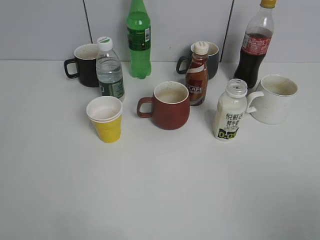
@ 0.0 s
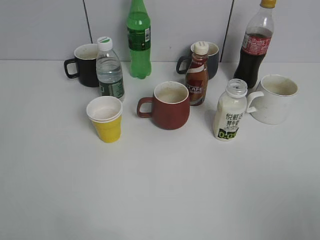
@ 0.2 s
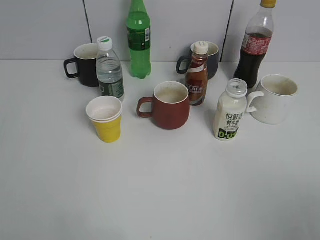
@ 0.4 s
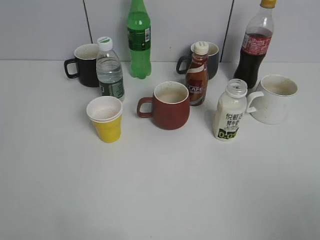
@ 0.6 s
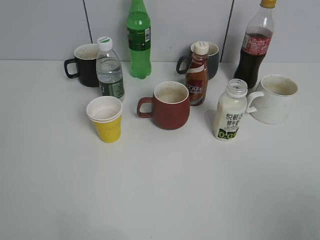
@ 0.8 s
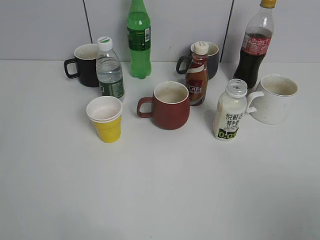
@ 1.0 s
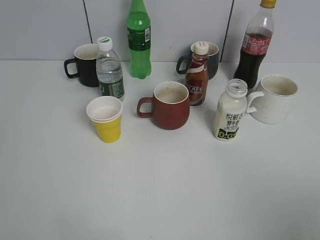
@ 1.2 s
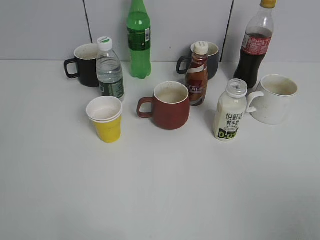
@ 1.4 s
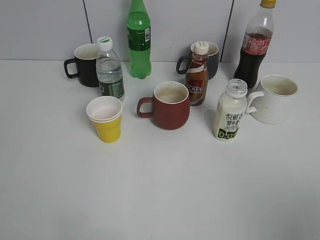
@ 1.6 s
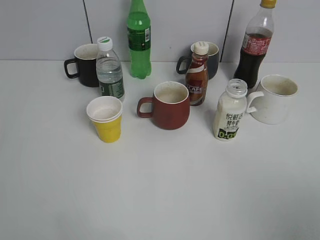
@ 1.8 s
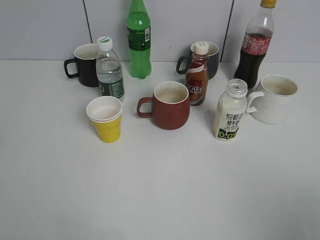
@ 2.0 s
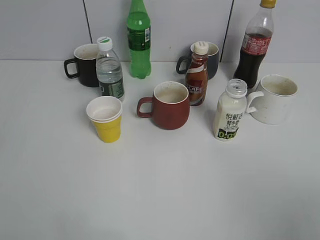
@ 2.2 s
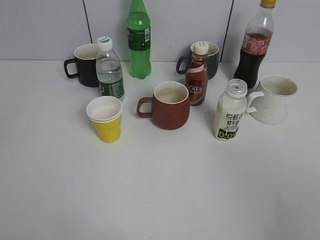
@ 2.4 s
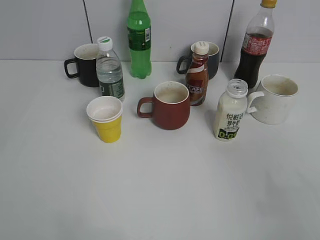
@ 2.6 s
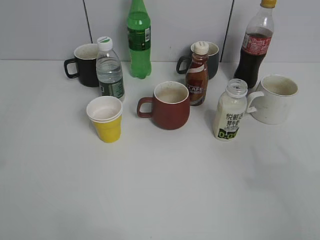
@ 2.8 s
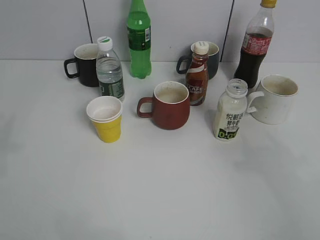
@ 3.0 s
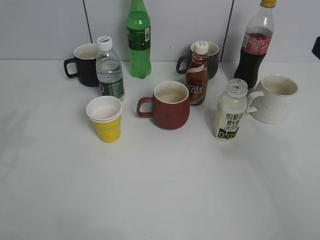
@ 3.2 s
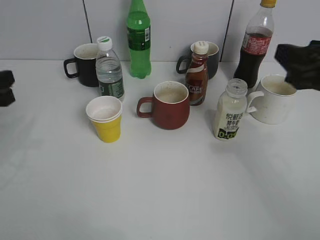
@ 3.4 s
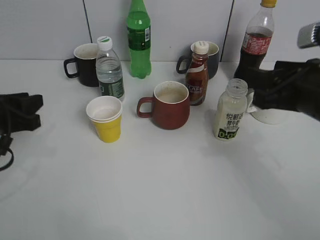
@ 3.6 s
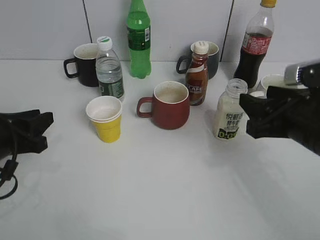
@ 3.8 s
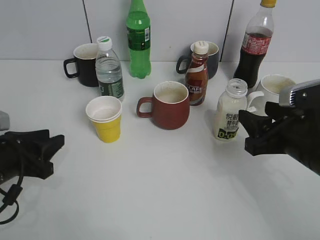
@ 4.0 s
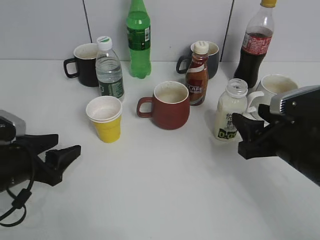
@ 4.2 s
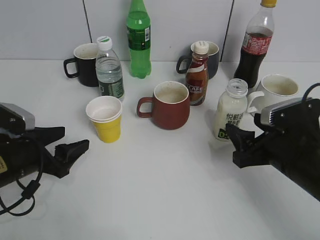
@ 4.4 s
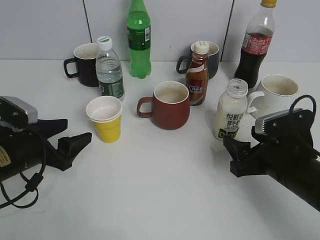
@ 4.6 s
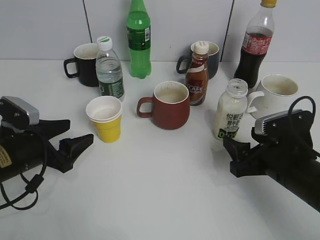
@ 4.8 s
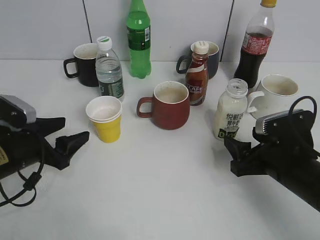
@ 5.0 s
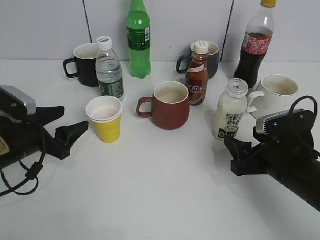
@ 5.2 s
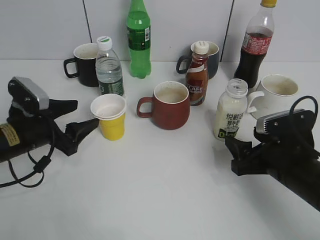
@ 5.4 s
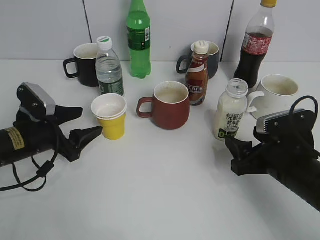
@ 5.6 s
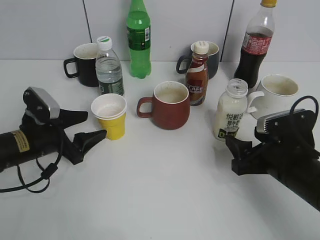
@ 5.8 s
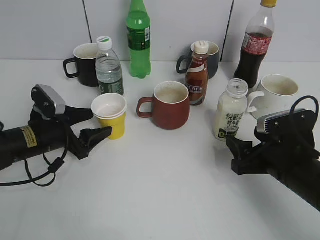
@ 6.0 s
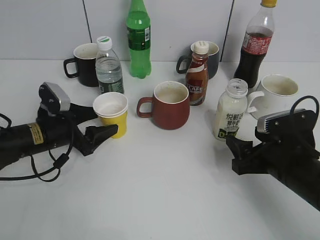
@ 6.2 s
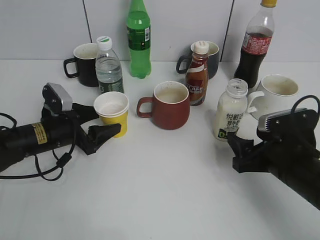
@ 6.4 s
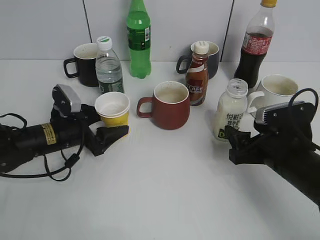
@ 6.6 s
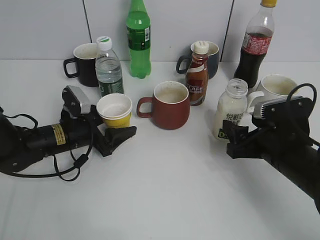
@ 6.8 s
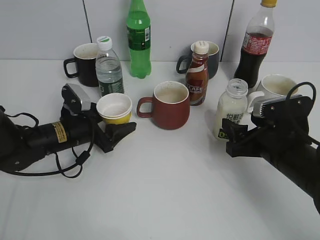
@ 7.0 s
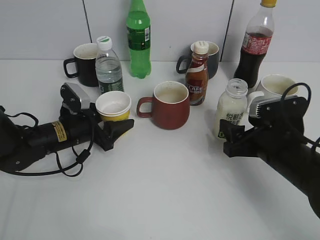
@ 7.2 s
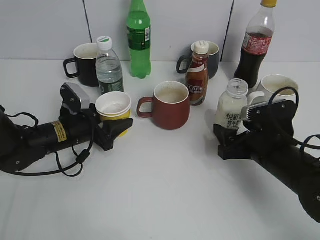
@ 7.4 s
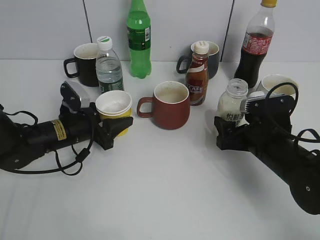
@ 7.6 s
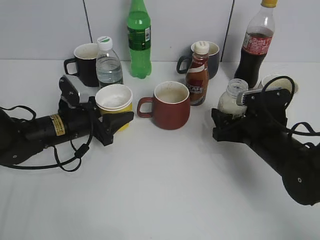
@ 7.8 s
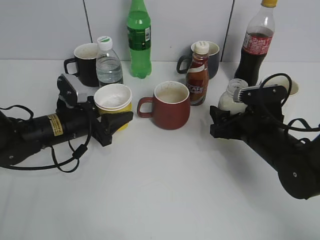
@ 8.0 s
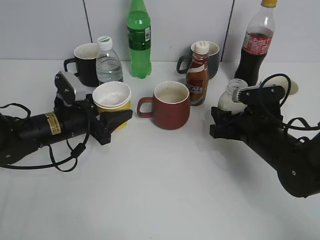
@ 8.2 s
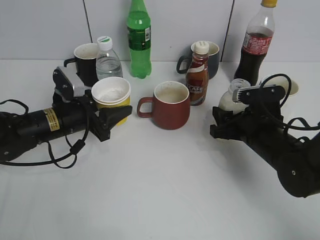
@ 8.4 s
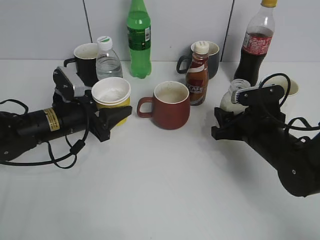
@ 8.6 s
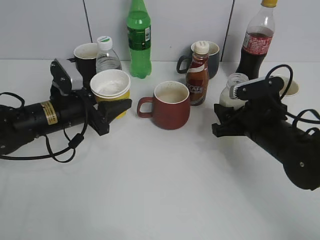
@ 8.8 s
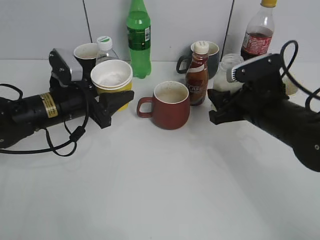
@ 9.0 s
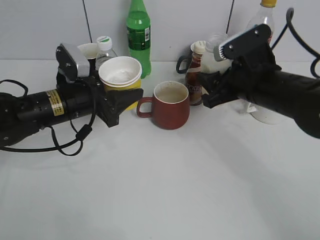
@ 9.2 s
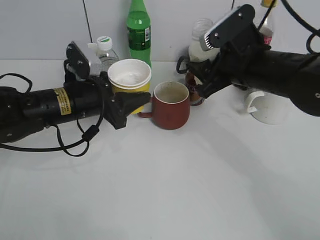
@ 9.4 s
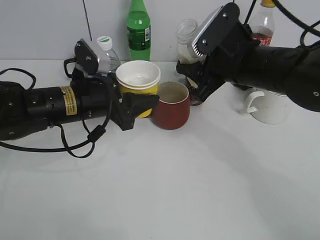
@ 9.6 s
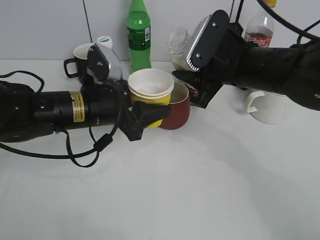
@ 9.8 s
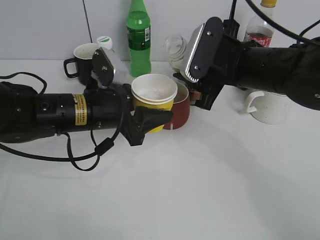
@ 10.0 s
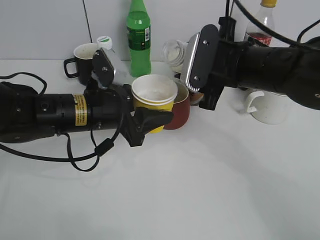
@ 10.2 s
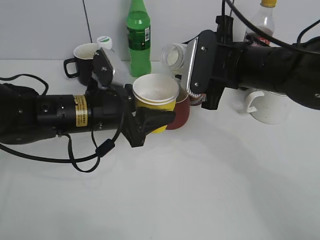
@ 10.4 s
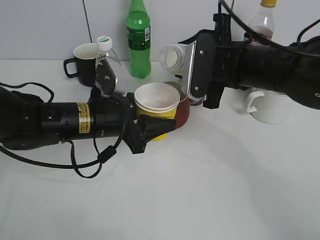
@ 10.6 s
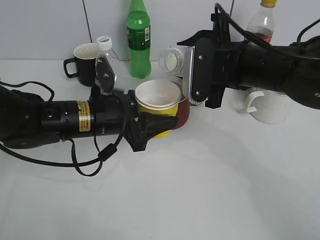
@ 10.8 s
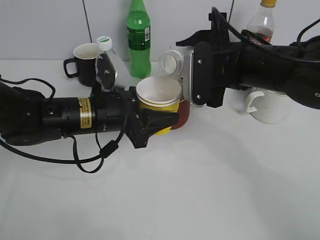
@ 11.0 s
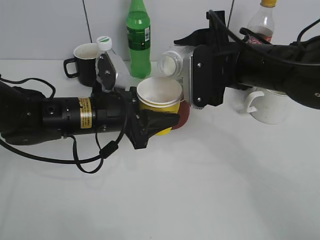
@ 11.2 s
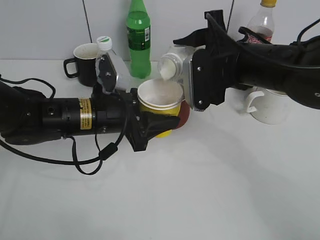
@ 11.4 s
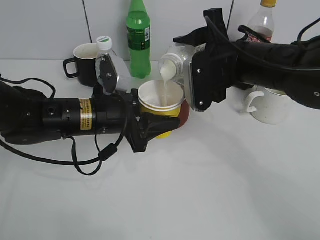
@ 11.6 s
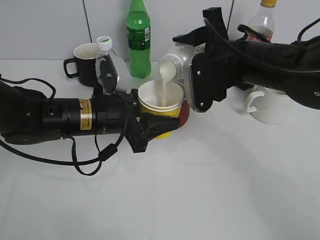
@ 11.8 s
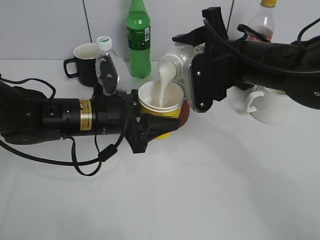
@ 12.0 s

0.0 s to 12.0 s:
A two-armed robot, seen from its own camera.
Step, 3.2 to 7.2 s: Grasp the yellow paper cup with left gripper.
Step, 7.4 to 8.0 s: Lift the yellow paper cup with left gripper.
1.6 to 3.0 s: The right gripper heads forward, covering about 15 cm.
3.0 to 4.4 s: The right gripper goes approximately 20 cm downward and forward, and opens its fingers, while the left gripper heads downward, covering some 20 cm, and opens up.
4.4 to 6.0 s: The left gripper is displaced forward by roughly 5 cm.
6.0 to 7.6 s: The left gripper changes place by roughly 5 cm, and closes its fingers.
7.6 to 9.0 s: Both grippers move upward, about 5 cm. The right gripper closes up.
9.0 to 10.4 s: The left gripper shifts some 5 cm to the right; the right gripper heads upward and to the left, covering roughly 10 cm.

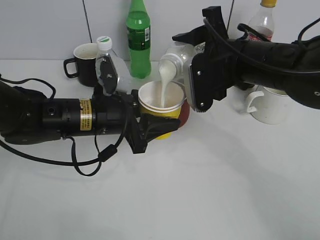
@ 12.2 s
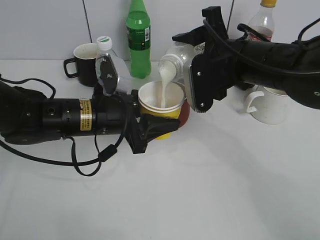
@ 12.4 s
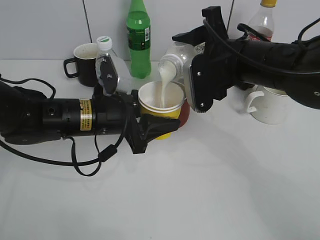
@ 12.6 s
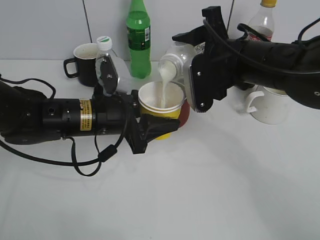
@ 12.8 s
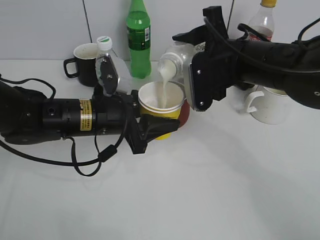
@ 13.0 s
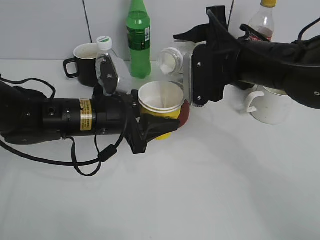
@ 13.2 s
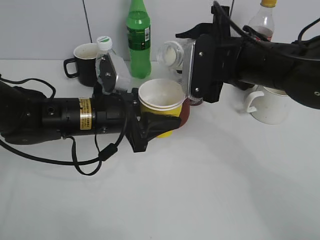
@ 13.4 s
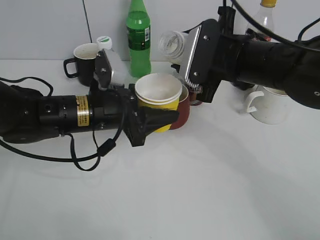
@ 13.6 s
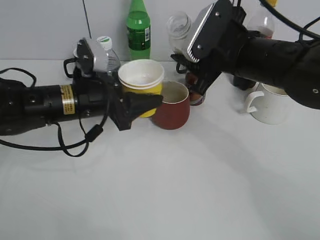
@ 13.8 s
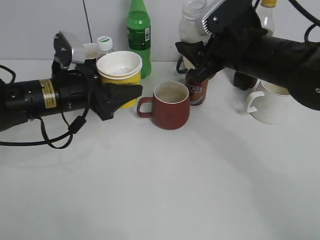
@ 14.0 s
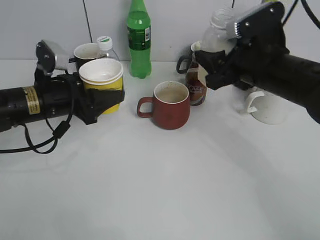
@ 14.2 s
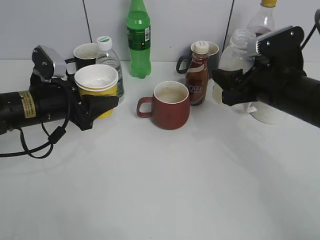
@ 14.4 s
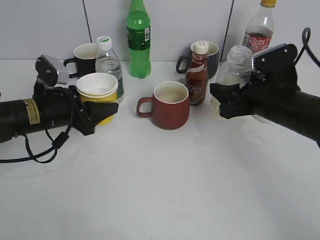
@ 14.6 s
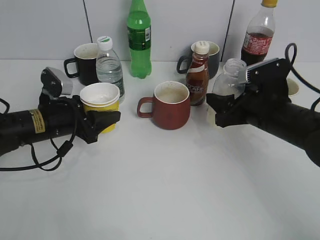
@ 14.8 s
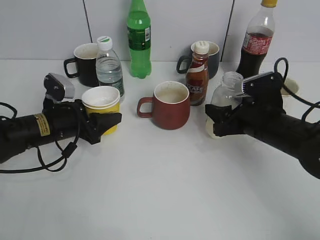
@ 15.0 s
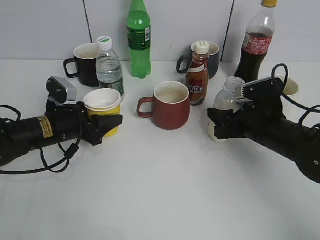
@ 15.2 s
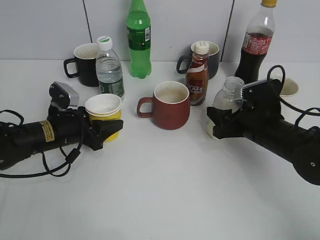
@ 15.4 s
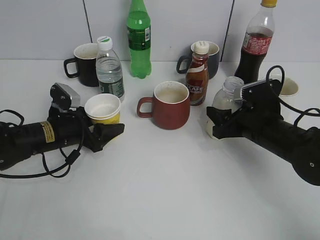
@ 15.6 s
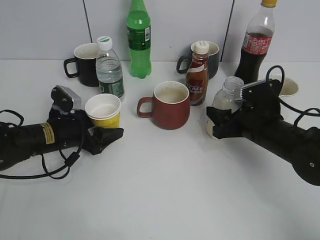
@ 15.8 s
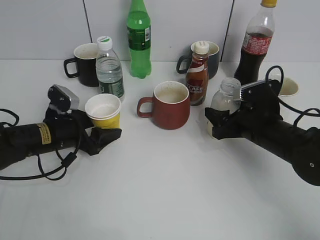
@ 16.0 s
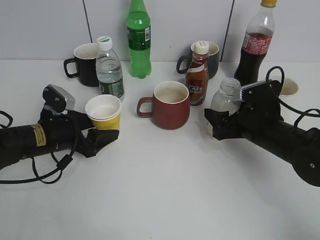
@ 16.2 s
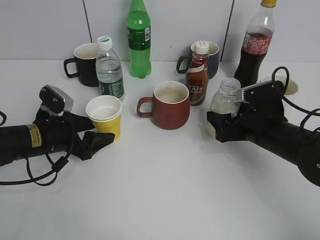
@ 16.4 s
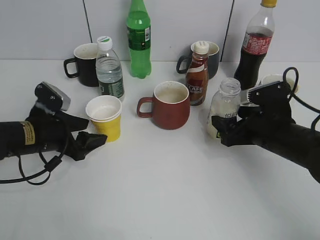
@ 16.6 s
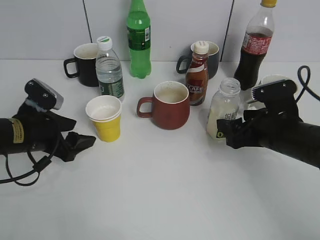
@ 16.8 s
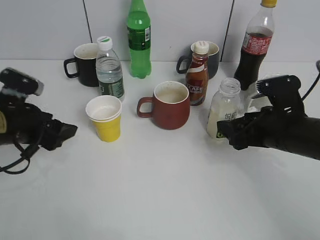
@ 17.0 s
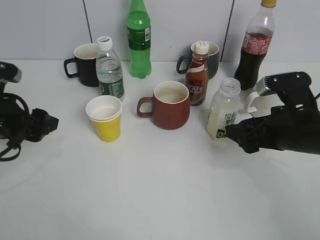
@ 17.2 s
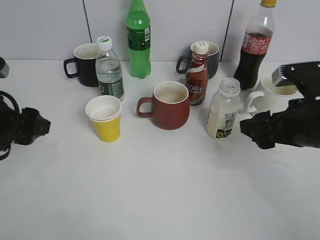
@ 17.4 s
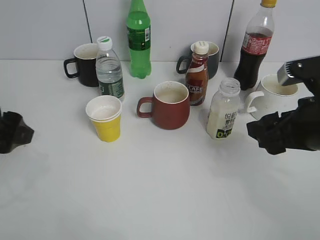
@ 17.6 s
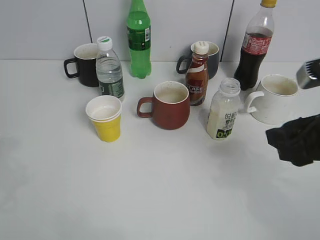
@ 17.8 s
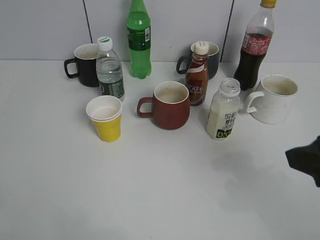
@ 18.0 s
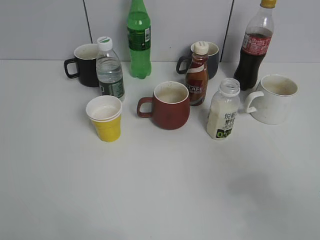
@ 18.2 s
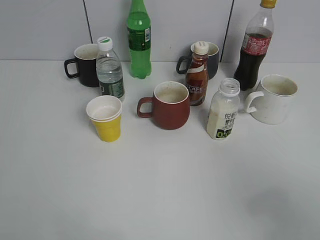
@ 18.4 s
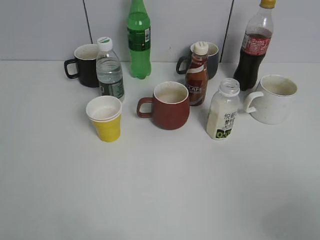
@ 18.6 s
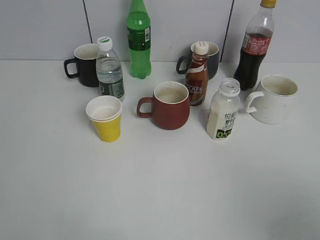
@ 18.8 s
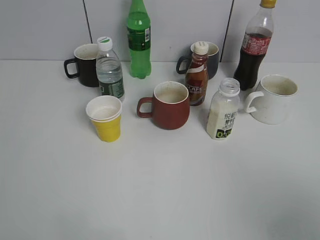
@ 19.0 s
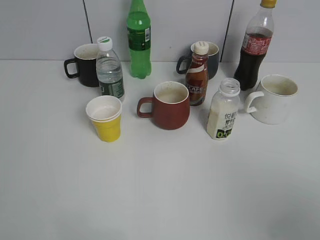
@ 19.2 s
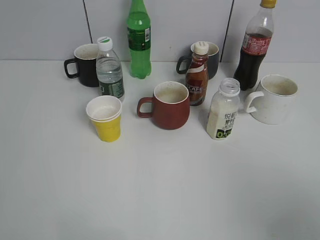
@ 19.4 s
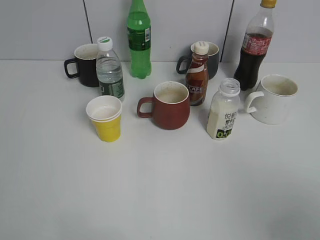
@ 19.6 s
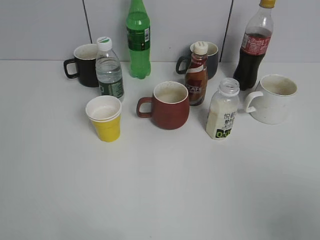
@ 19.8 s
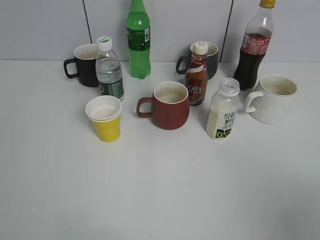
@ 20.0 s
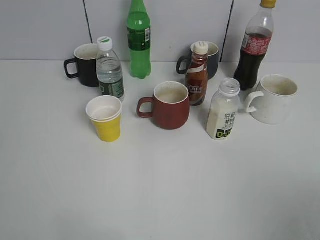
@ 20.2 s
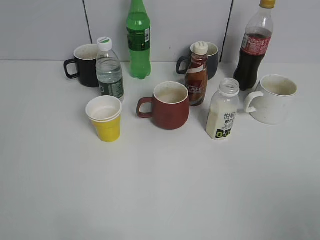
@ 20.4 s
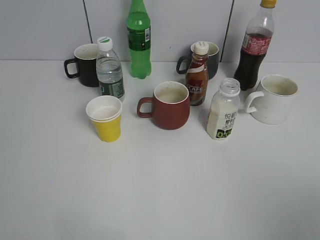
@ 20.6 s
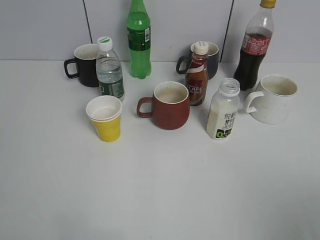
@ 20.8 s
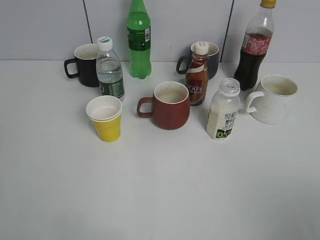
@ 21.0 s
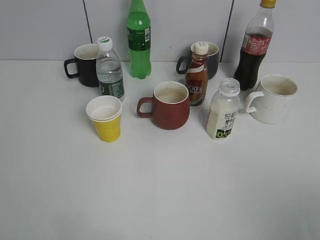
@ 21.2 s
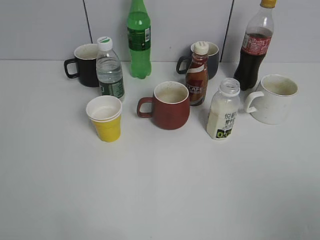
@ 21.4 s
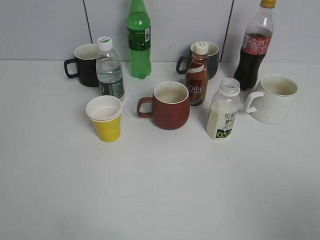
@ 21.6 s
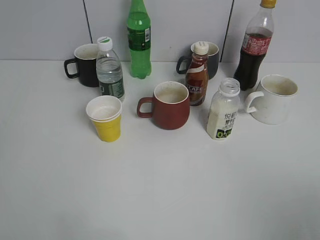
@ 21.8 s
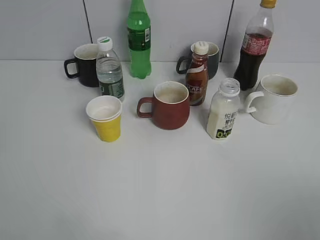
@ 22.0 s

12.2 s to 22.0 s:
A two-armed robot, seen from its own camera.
Step, 13.6 to 17.2 s: Place the yuexian Milk bottle on the table with right gripper.
13.6 to 15.0 s: The right gripper is displaced downward and to the right by roughly 15 cm; the left gripper goes some 10 cm to the left and downward.
15.0 to 16.4 s: The right gripper opens; the left gripper opens up.
16.4 to 17.8 s: The grippers both shift upward and backward by approximately 20 cm. The right gripper closes up.
17.8 to 19.2 s: The right gripper travels backward and to the right by roughly 20 cm.
20.6 to 22.0 s: Both grippers stay put.
